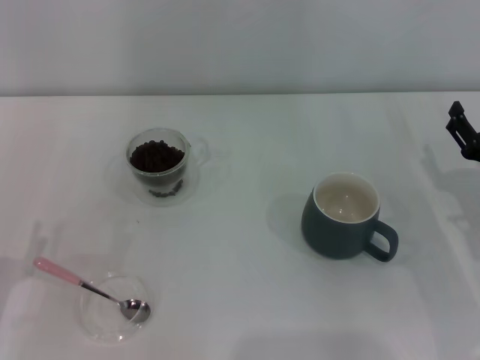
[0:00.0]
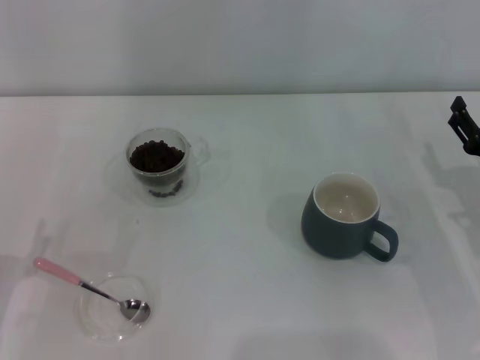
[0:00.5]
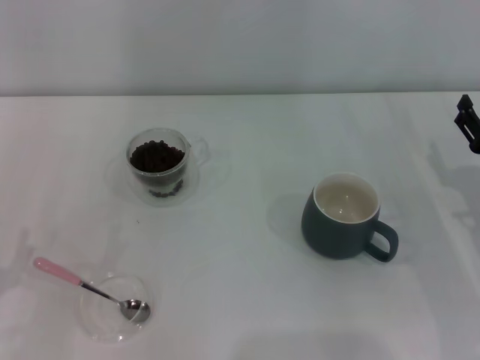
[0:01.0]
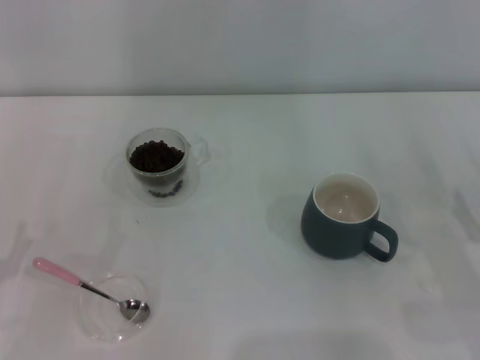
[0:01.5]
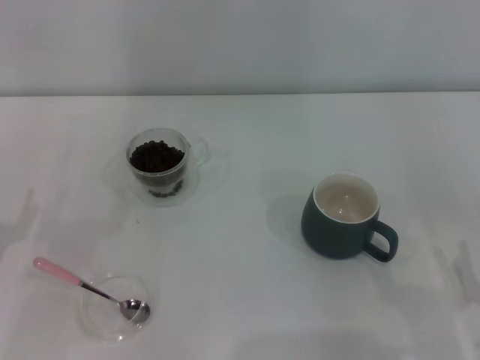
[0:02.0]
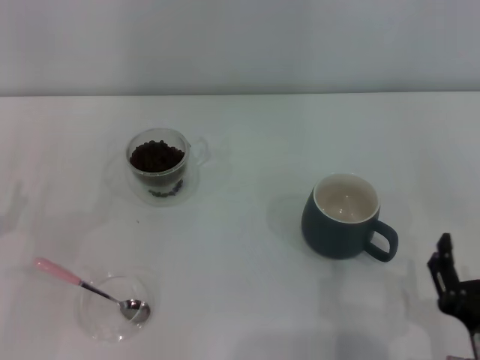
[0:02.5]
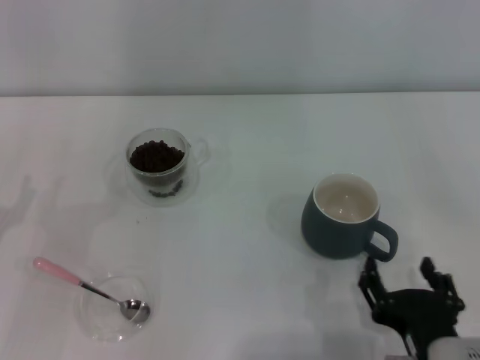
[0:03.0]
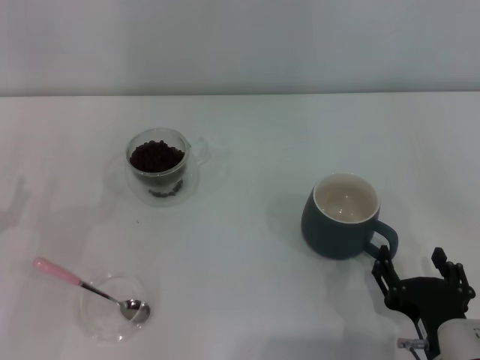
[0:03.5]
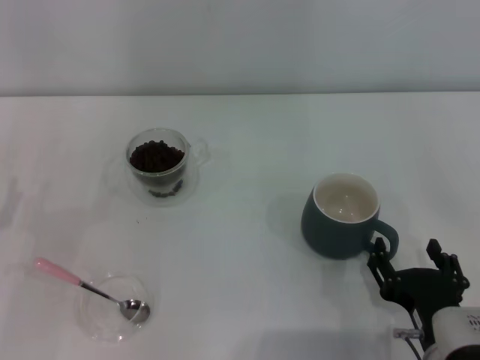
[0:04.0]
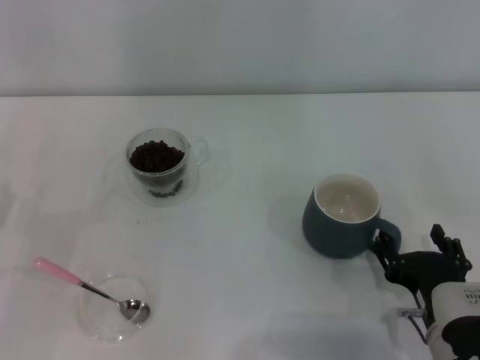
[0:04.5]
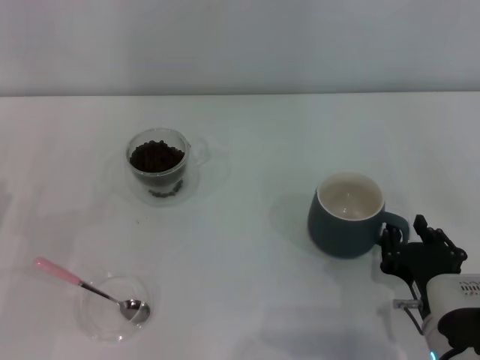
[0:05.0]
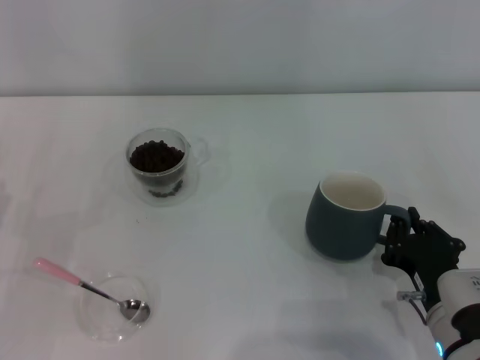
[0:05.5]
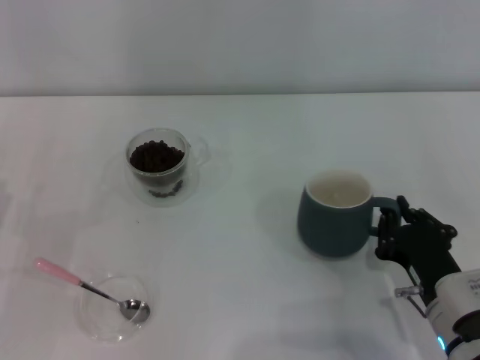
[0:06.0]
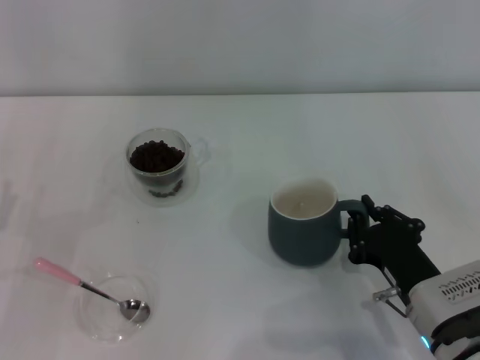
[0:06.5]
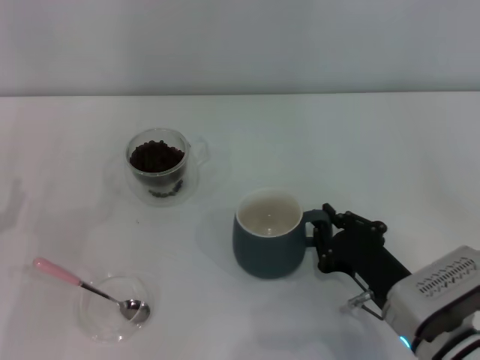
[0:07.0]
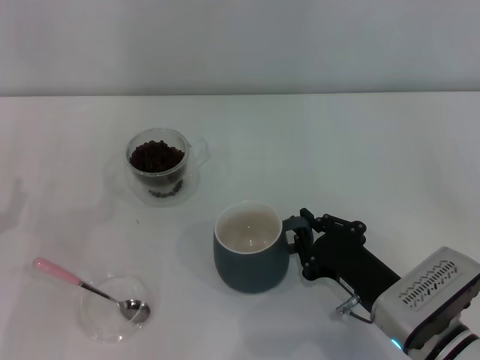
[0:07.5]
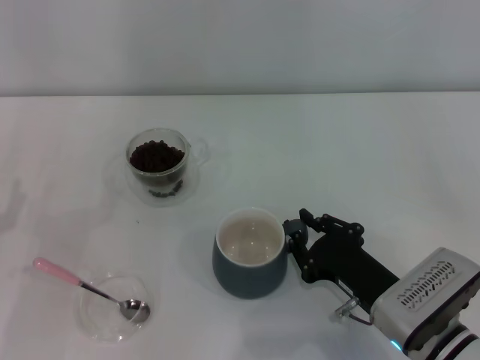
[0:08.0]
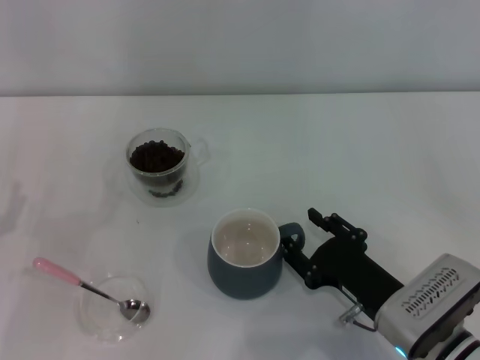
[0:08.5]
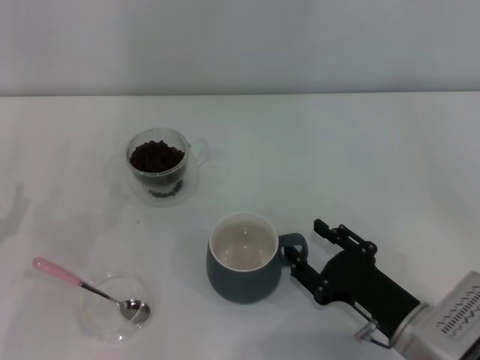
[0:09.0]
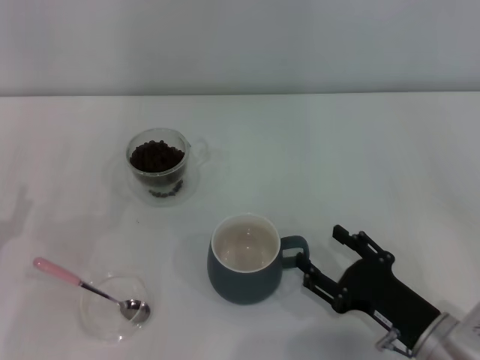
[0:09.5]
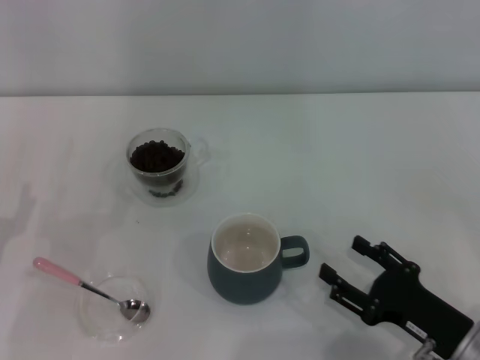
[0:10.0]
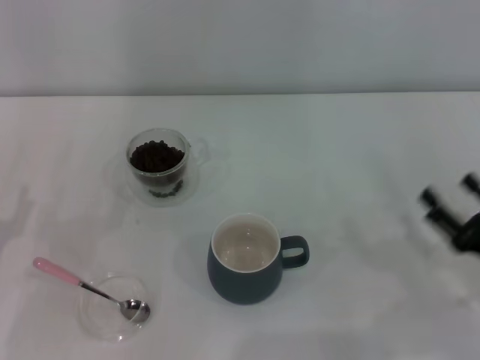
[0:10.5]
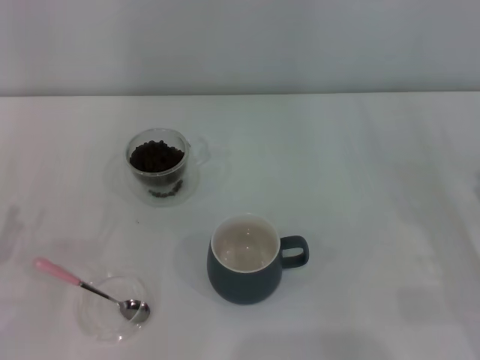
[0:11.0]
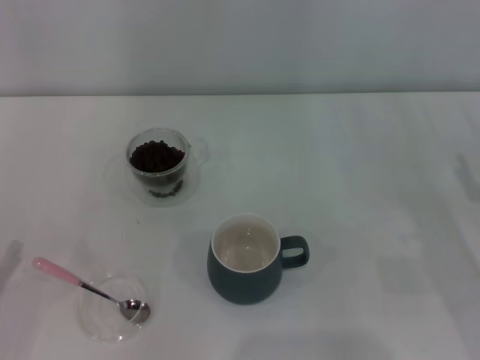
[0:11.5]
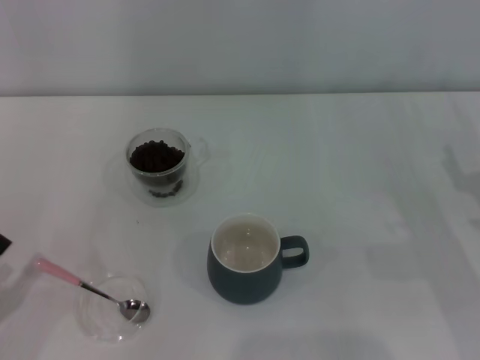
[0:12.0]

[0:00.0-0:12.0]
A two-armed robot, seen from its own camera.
Task of the whole recording: Use a pink spoon to take out the coffee beans from the glass and pour them into the gray cup.
Step, 0:00.0 to 0:09.5: Move the cup to the center of view with the left gripper.
0:00.0 to 0:02.0: The right gripper moves backward, about 15 cm.
0:02.0 to 0:04.0: The right gripper travels to the left by some 10 cm.
0:04.0 to 0:06.0: The right gripper moves about 5 cm, and closes its fingers.
0:08.0 to 0:10.0: The right gripper shifts approximately 5 cm to the right, and opens its fingers.
0:10.0 to 0:12.0: The right gripper goes some 15 cm forward and to the right; the left gripper heads backward, covering approximately 5 cm.

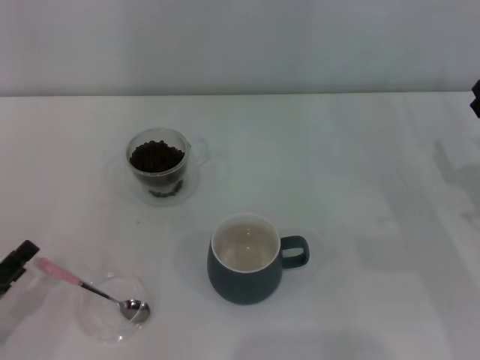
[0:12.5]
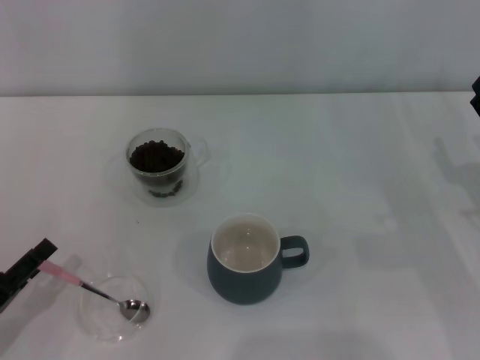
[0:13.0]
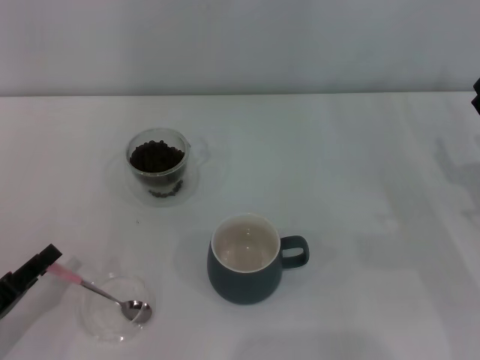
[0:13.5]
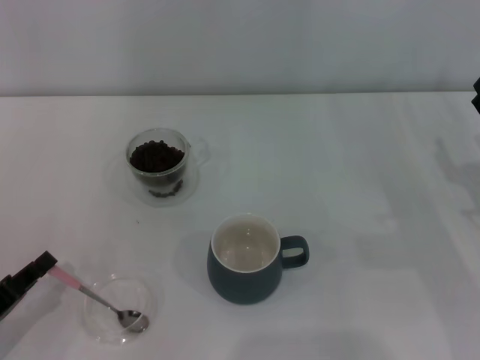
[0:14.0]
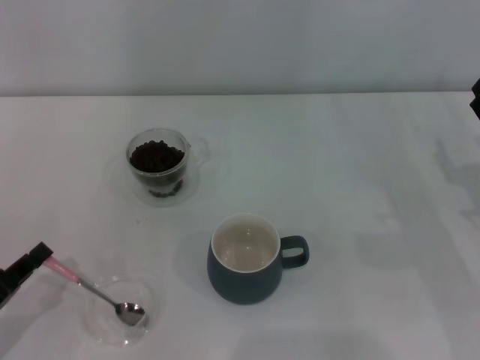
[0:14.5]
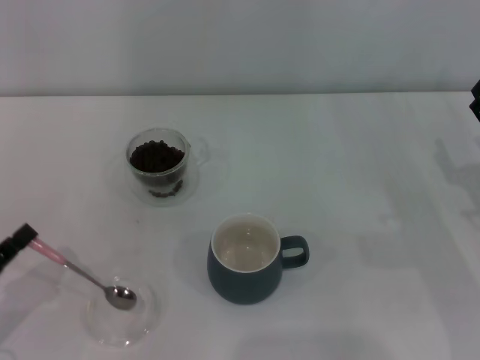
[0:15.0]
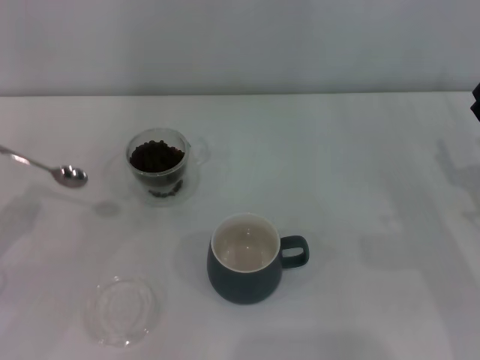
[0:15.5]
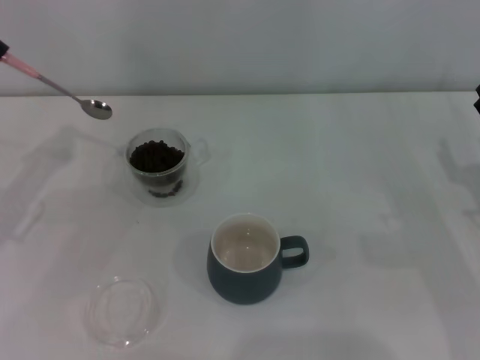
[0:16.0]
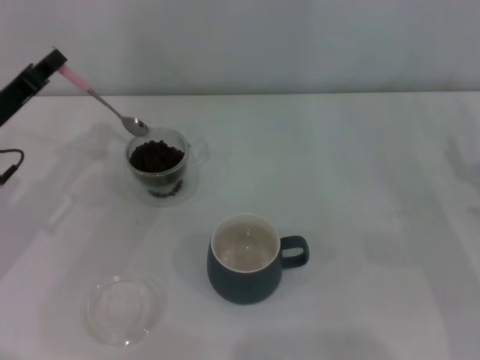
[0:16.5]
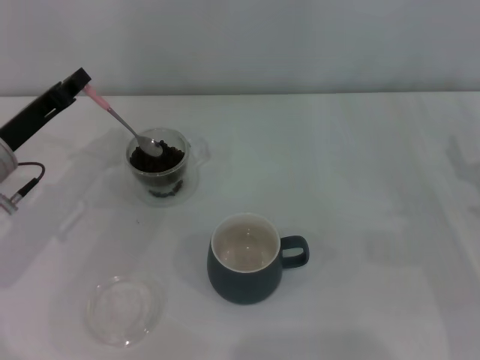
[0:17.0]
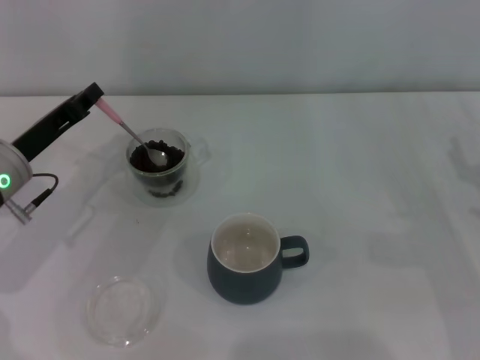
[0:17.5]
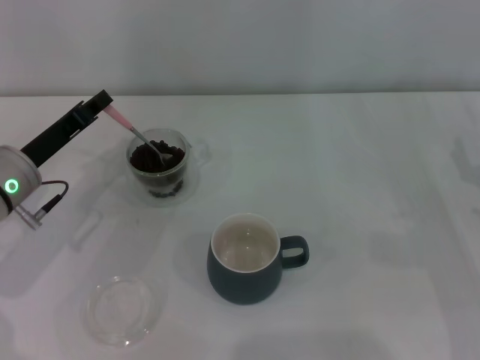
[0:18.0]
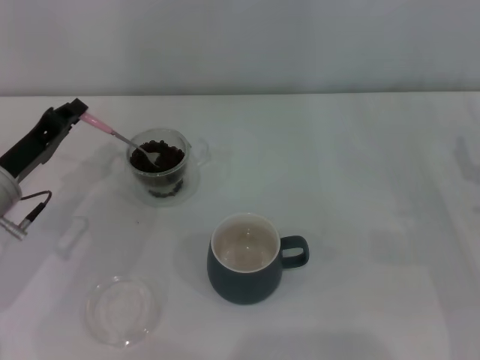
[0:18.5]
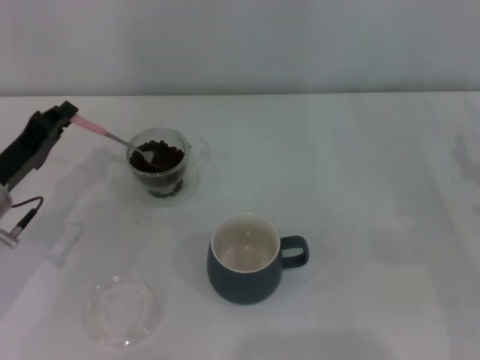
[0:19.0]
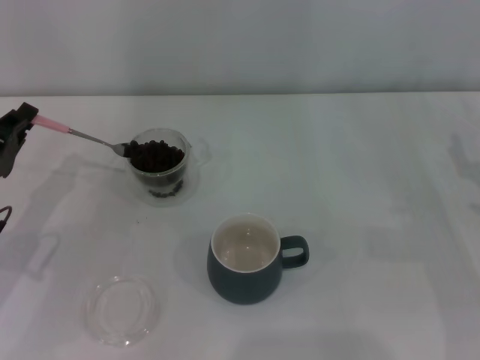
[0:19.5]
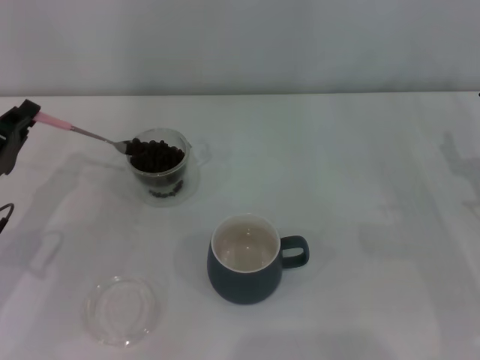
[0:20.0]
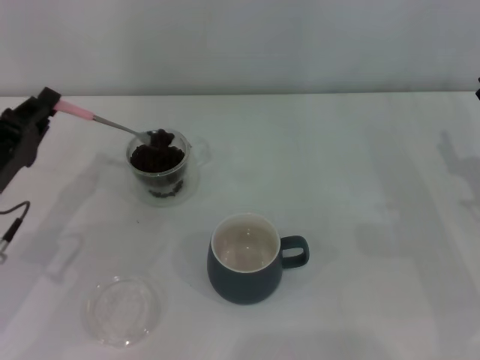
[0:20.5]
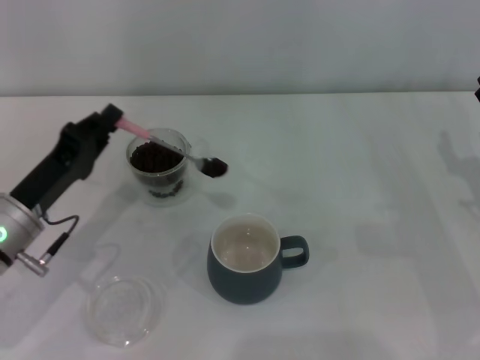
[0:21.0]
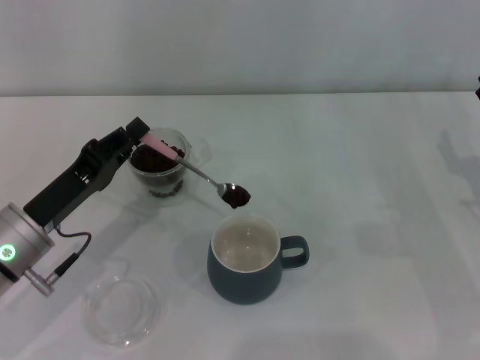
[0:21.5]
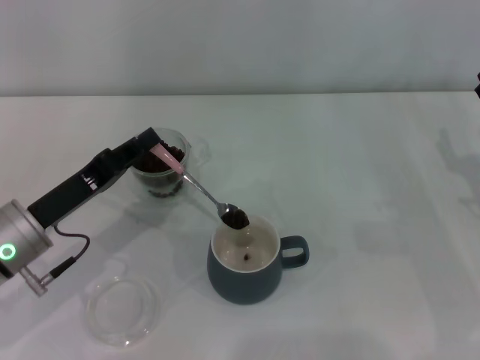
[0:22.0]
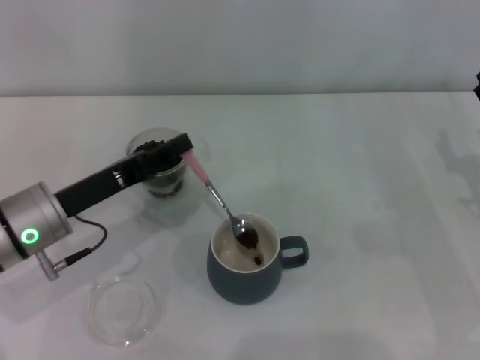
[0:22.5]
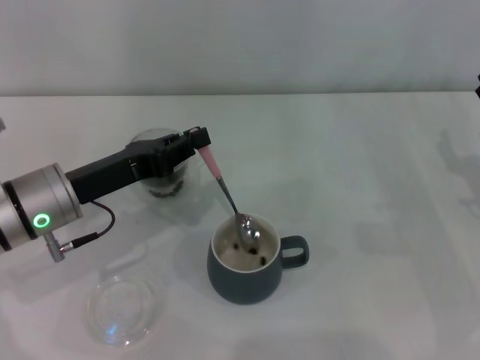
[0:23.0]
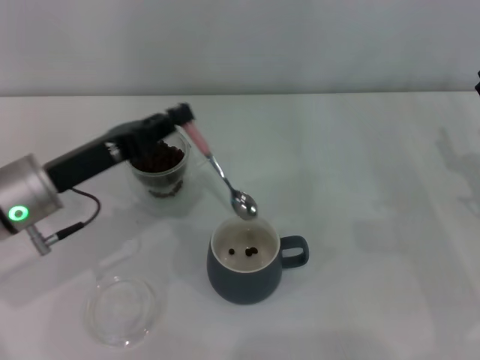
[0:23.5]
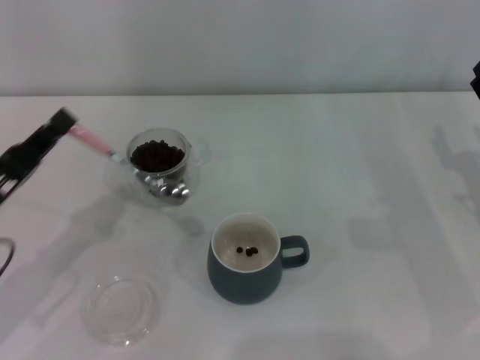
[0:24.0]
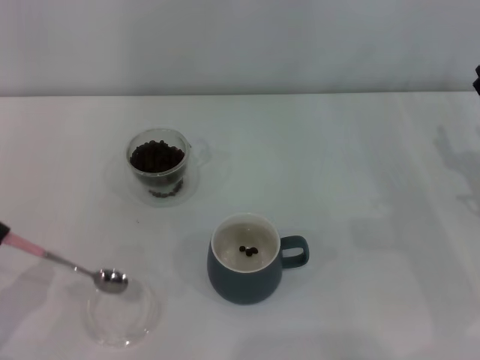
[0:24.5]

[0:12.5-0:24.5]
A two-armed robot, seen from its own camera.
Task of the whole recording: Use a pink spoon to take out the coffee beans from the glass and pour them into the gray cup.
Step, 0:12.5 to 0:15.0: Pick up the spoon with the right gripper.
0:12.5 to 0:14.5: The left gripper closes its fingers.
0:14.5 to 0:16.5: The left gripper moves forward and upward, approximately 20 cm.
0:16.5 to 0:18.5: There are only small adjustments of the grippers.
0:18.5 to 0:20.5: The grippers stay close to where they were, moving slightly.
0:20.5 to 0:22.5: The left gripper travels to the right by roughly 5 cm.
0:22.5 to 0:24.5: The left gripper shifts some 20 cm backward and to the left.

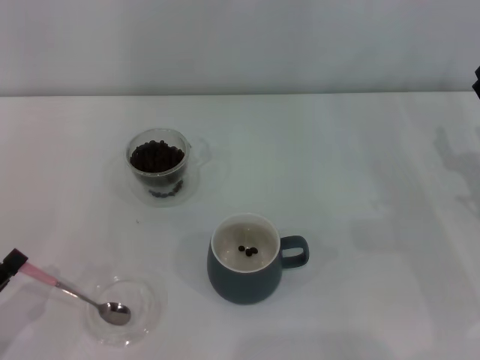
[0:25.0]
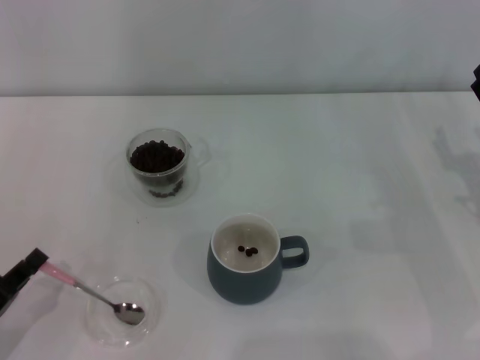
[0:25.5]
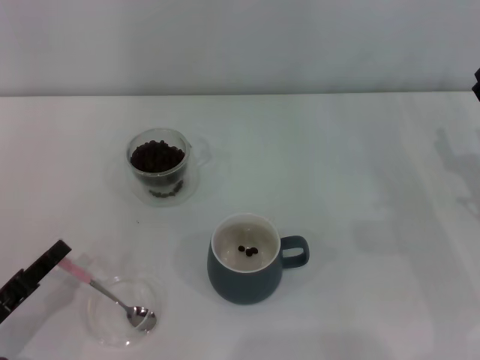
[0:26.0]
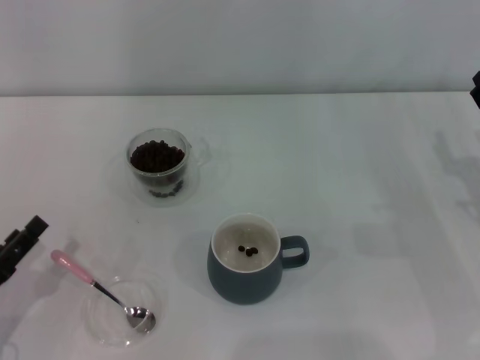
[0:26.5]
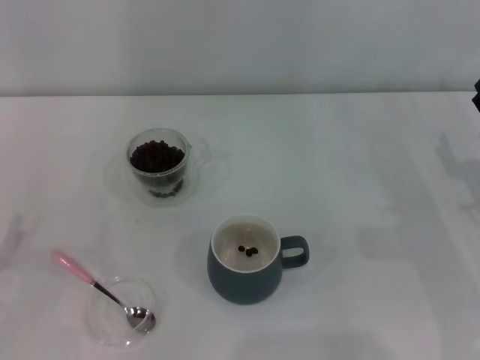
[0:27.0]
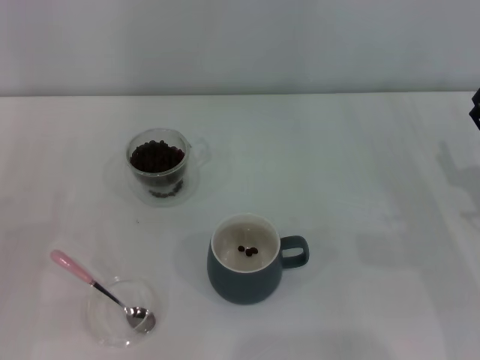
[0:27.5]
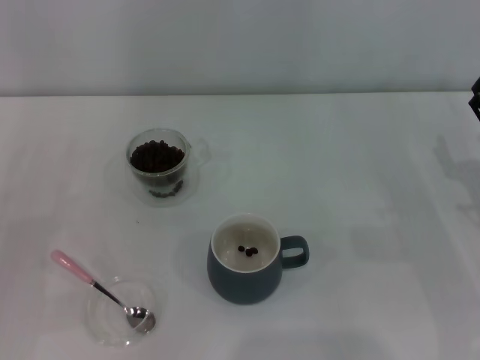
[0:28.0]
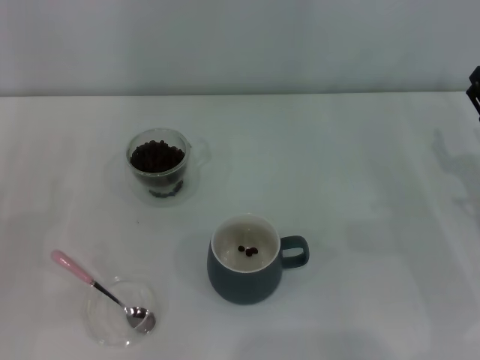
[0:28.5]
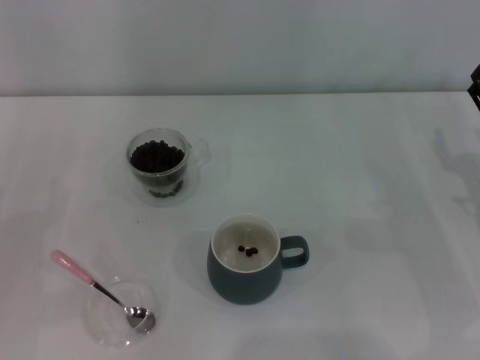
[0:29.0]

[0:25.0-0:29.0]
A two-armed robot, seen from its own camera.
Task of the whole recording: Use a pink spoon to take out the coffee beans from the glass and pour them into the gray cup.
0:25.0 to 0:27.0: The left gripper opens up.
